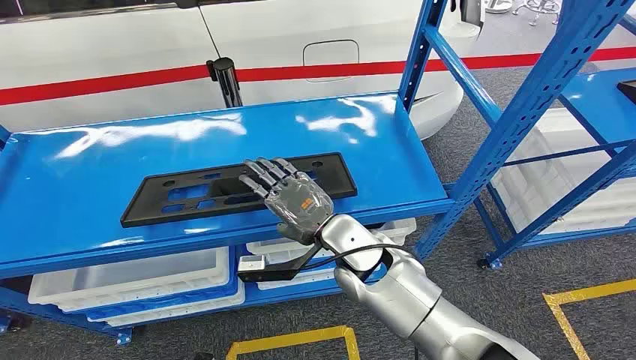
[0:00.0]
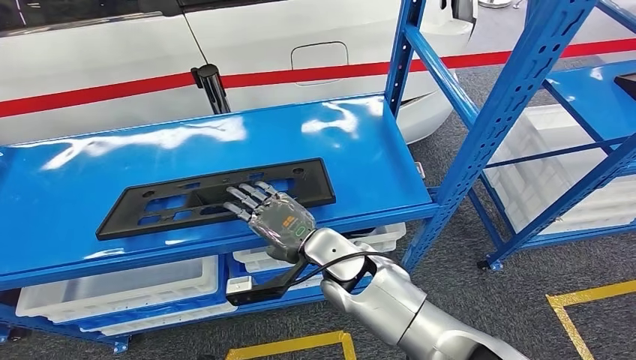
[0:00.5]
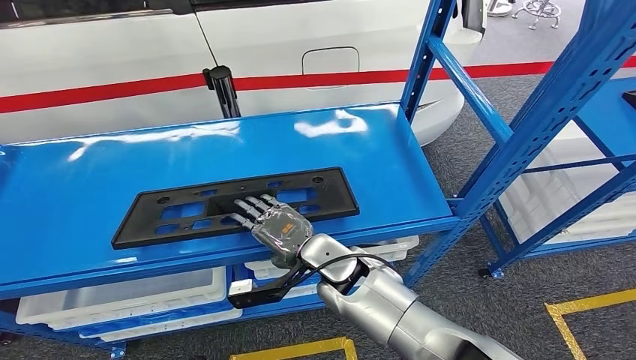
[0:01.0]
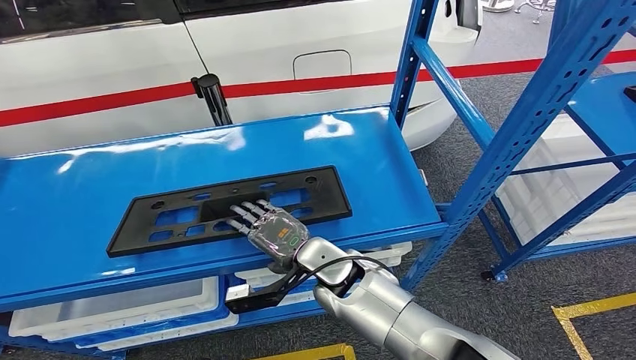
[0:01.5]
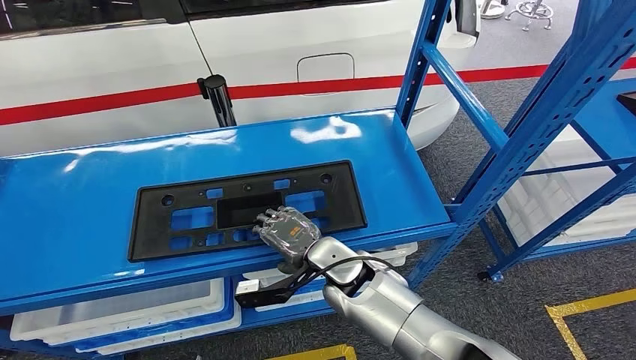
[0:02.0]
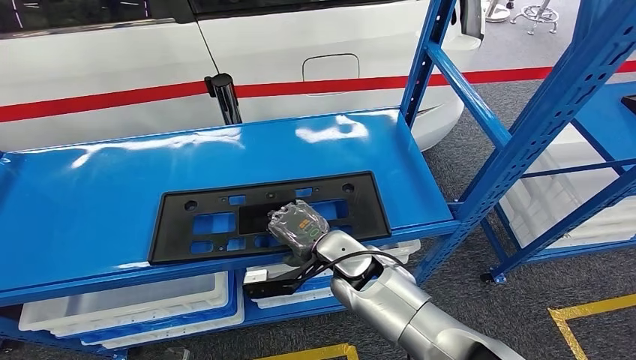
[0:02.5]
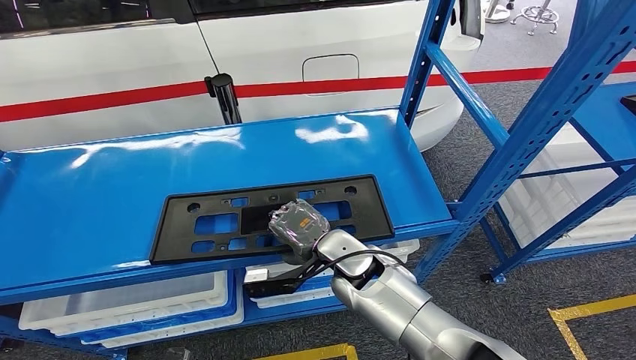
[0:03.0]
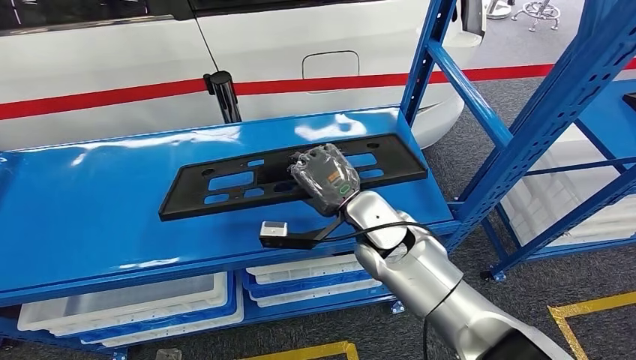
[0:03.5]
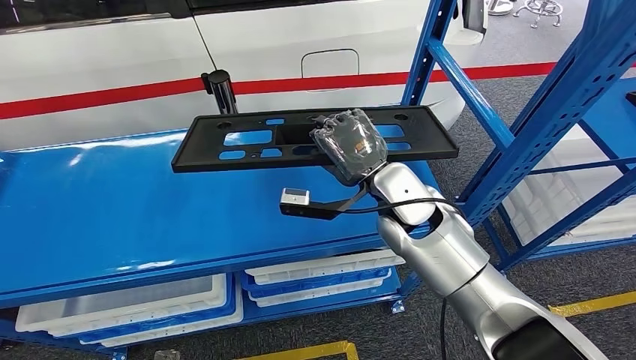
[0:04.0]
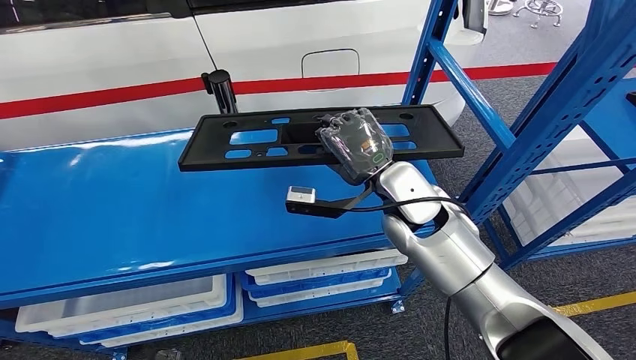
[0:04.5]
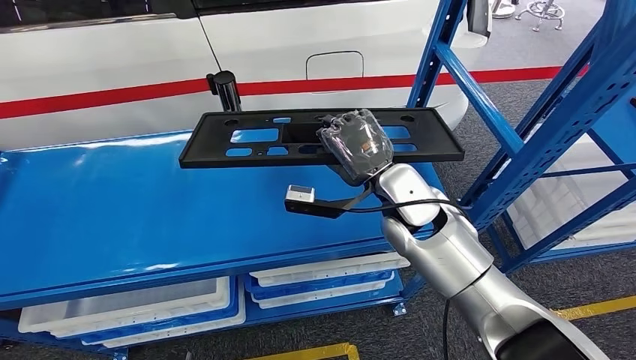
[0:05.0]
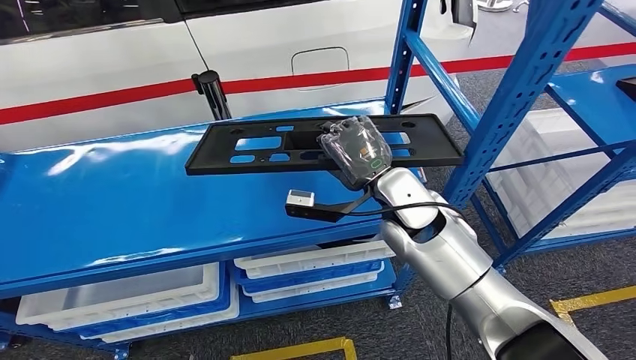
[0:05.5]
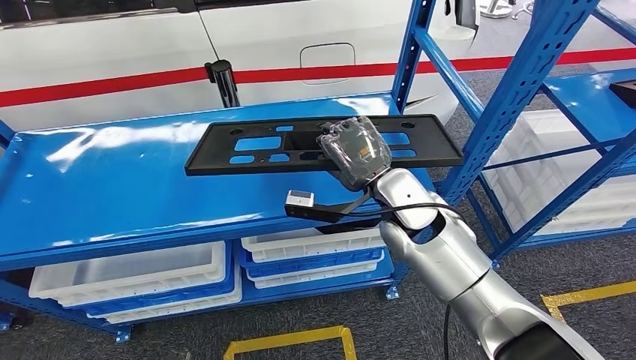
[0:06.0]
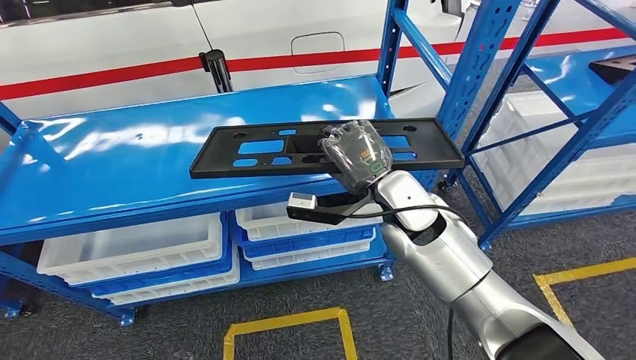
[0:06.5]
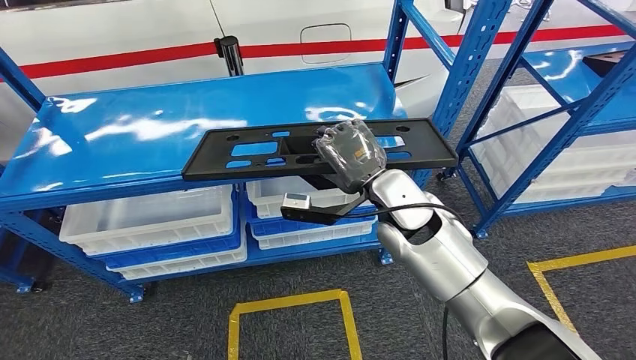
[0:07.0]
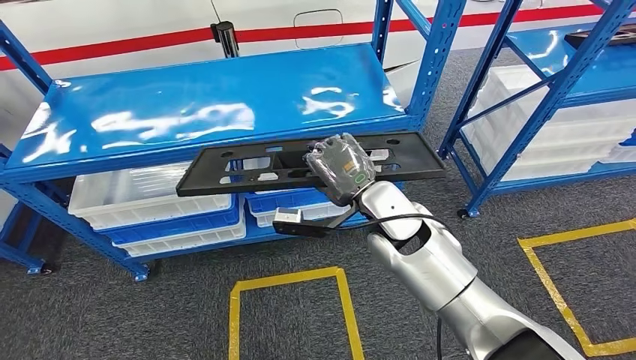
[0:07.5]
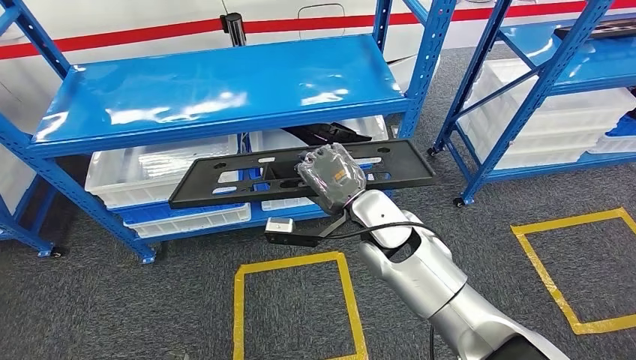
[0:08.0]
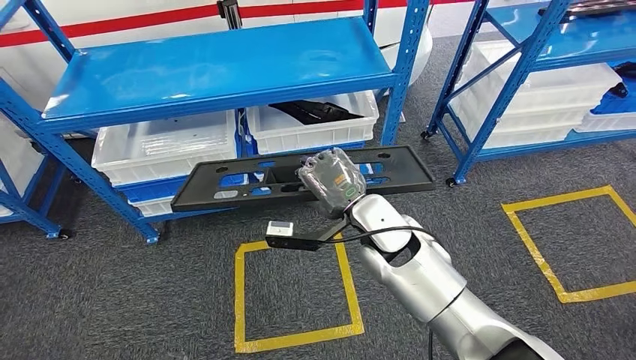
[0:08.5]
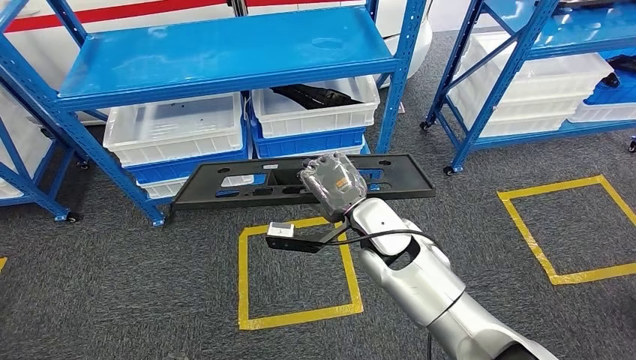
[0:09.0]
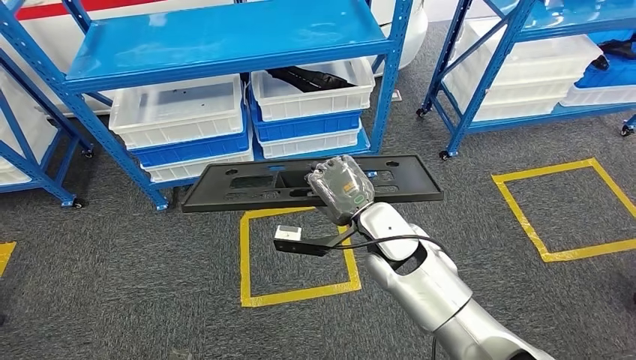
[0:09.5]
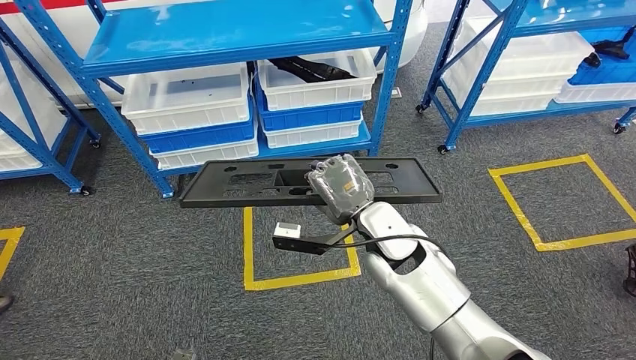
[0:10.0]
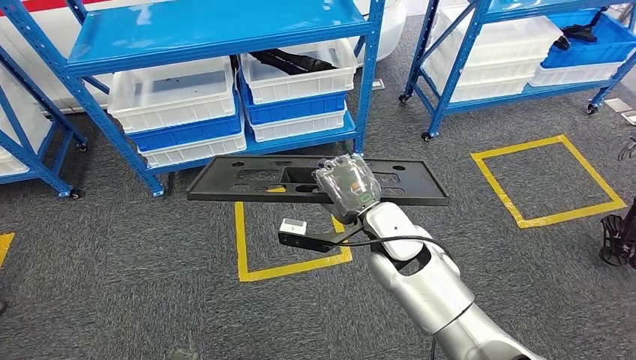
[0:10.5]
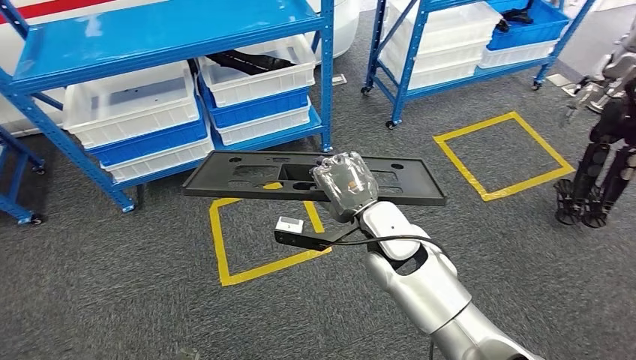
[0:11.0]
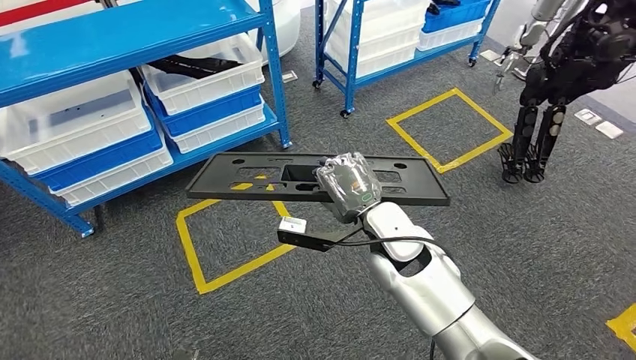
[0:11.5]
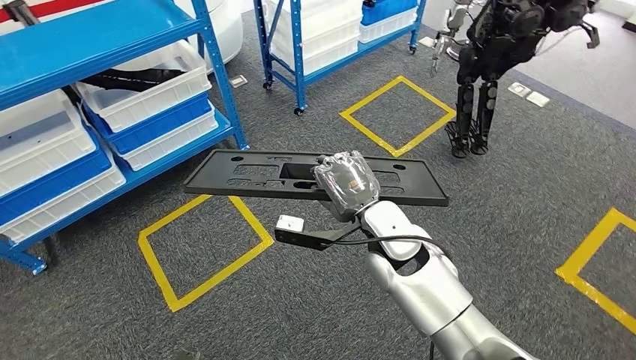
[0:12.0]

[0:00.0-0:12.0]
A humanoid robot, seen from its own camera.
Step, 0:00.0 to 0:06.5: Pick up the large material from the shelf.

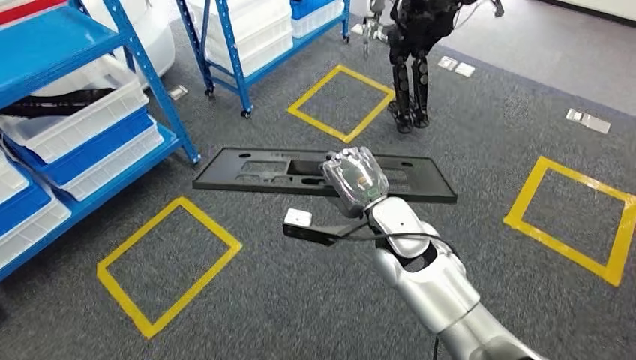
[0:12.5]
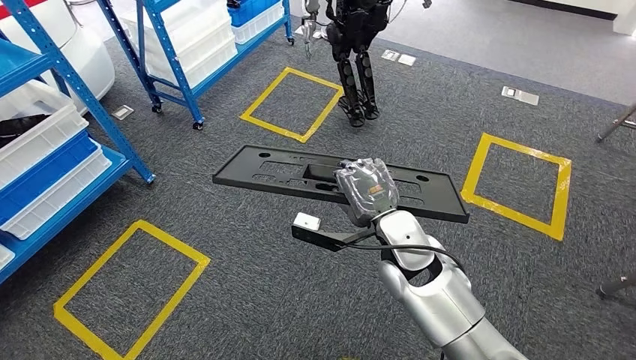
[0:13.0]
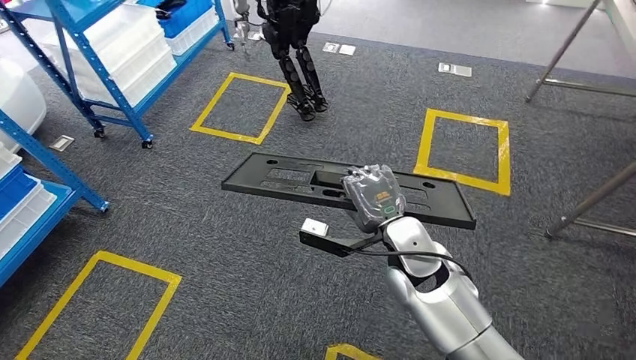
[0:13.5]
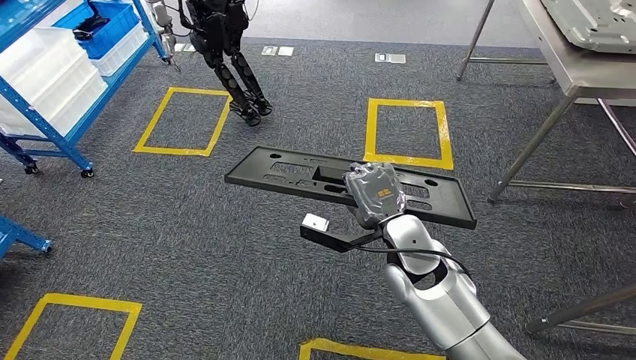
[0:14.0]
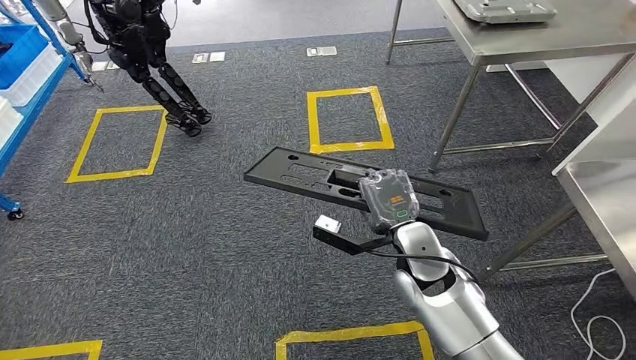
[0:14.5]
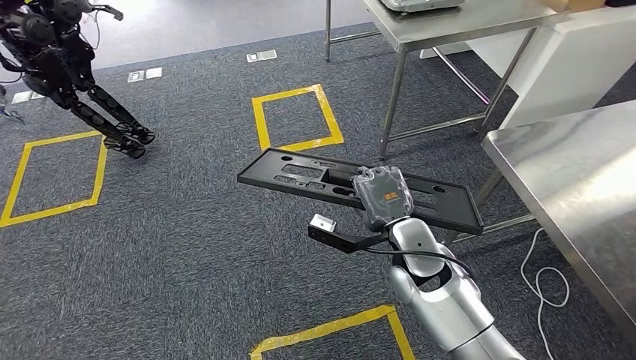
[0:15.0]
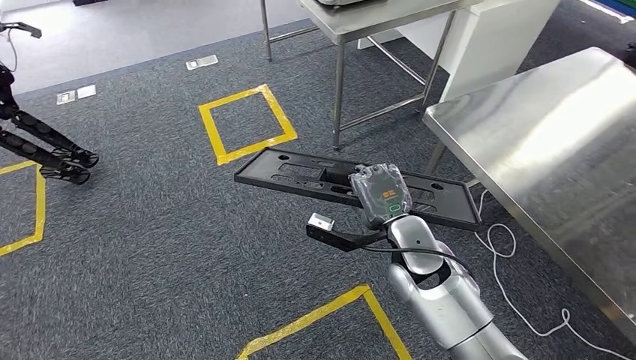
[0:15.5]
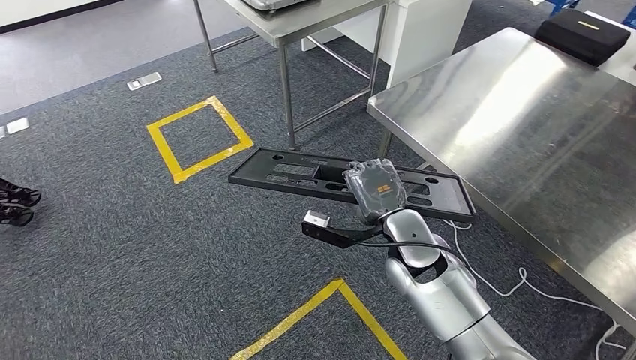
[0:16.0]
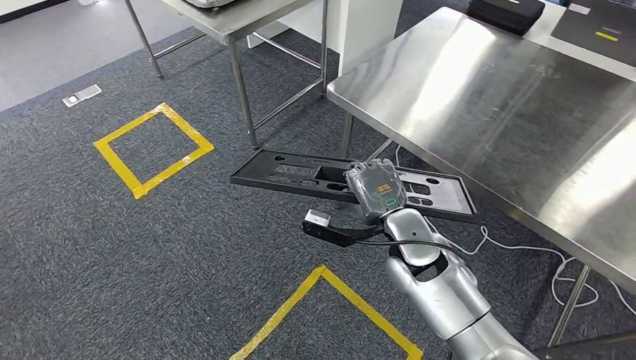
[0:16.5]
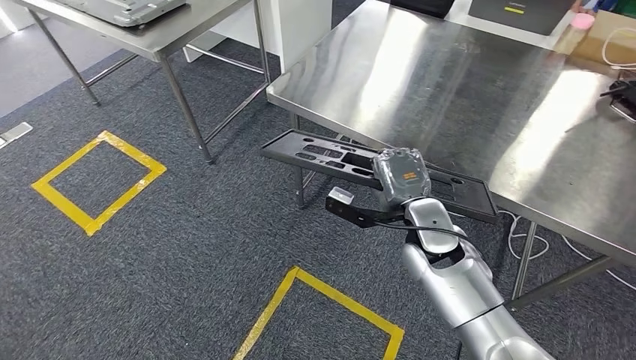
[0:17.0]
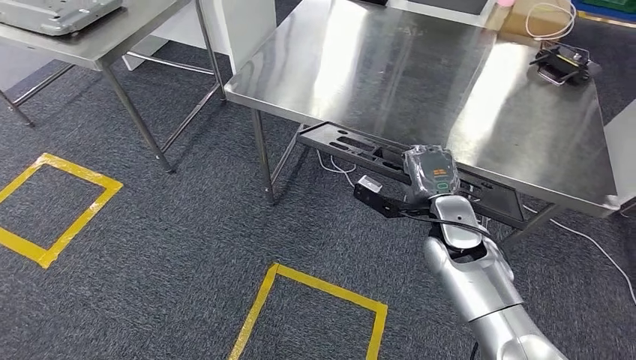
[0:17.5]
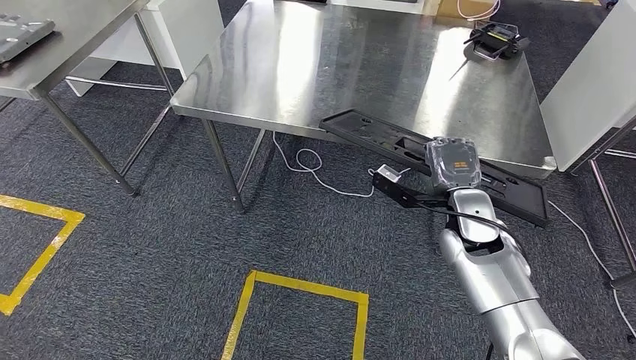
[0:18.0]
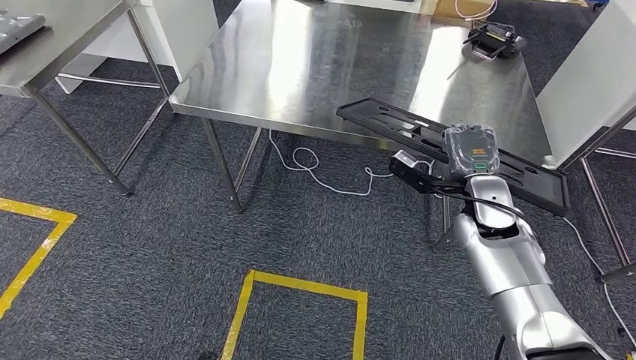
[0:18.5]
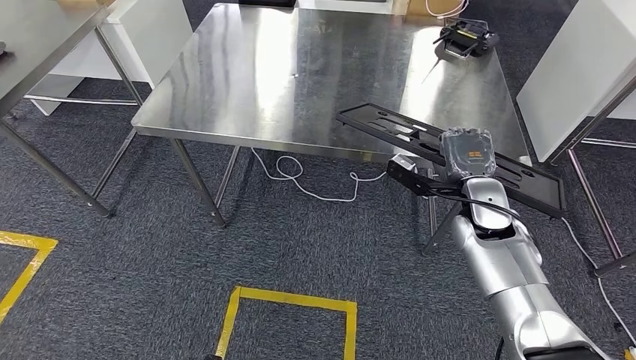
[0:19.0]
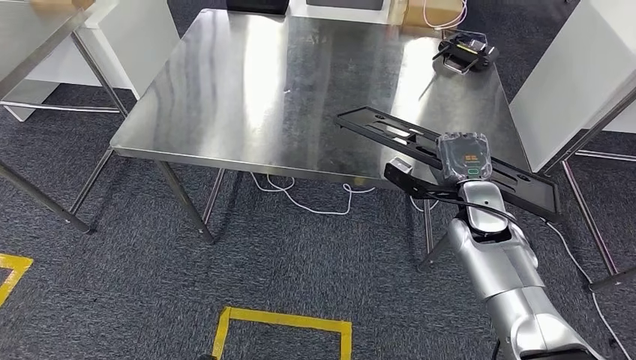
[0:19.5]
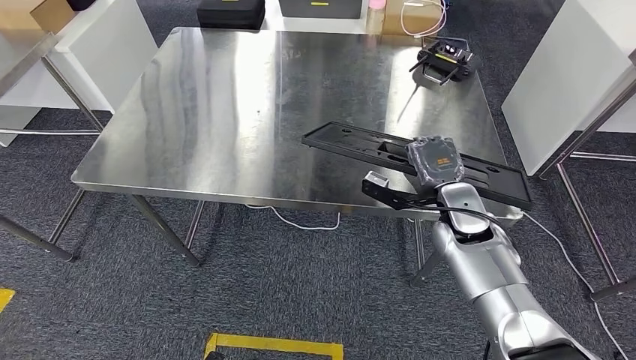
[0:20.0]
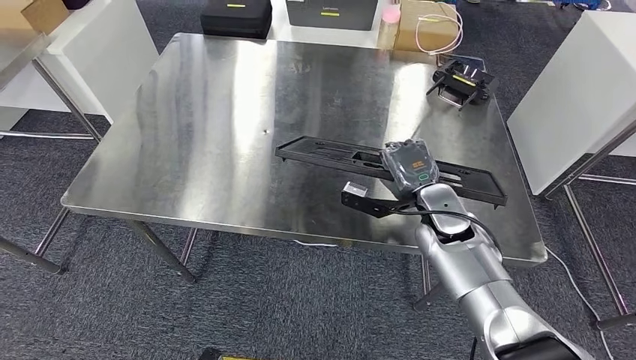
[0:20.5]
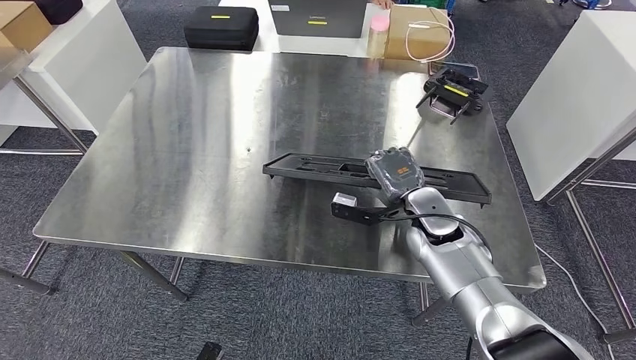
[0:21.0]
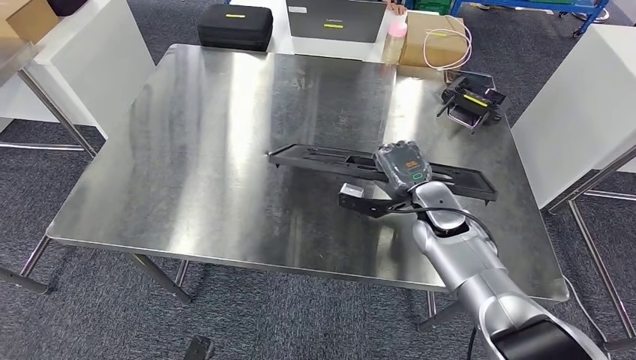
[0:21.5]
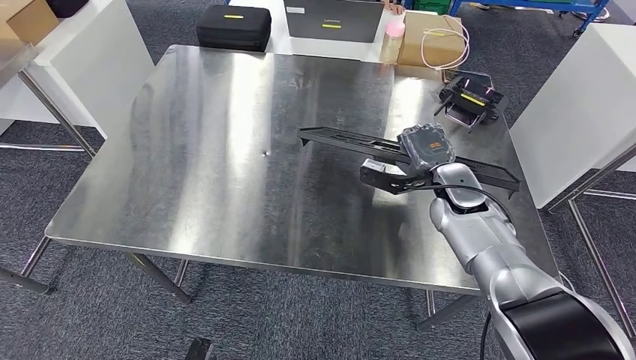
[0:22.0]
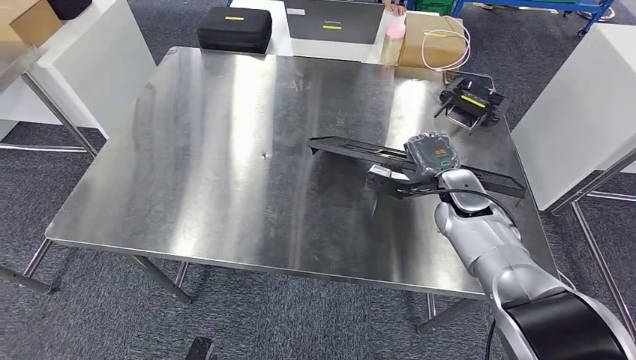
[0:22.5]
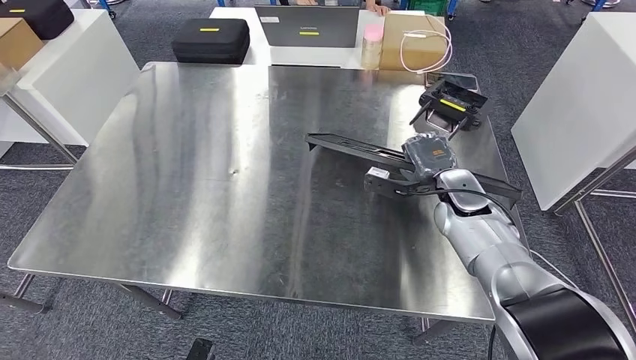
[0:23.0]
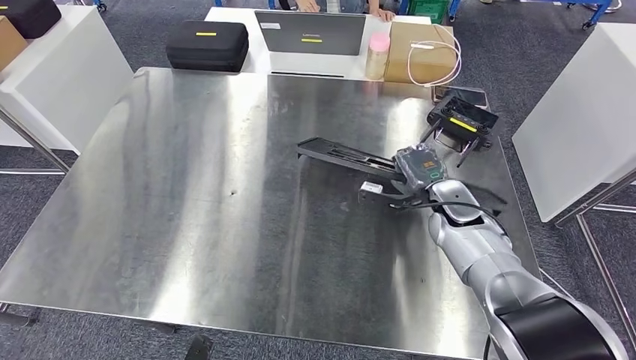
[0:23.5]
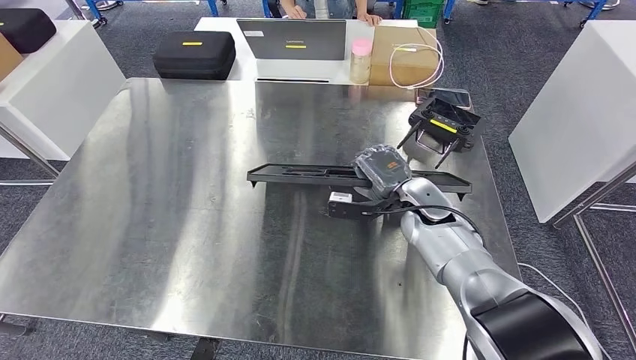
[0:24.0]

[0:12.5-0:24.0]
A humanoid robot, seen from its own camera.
Step, 0:12.5 to 0:18.0: Move the large material to the workbench.
